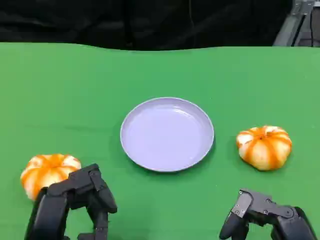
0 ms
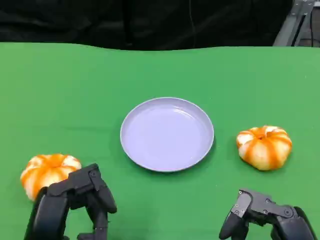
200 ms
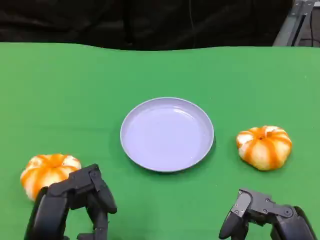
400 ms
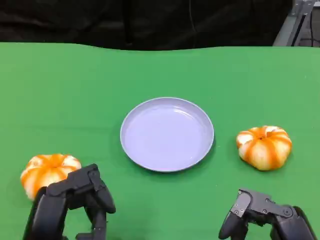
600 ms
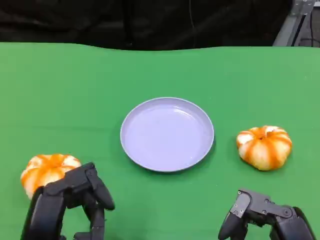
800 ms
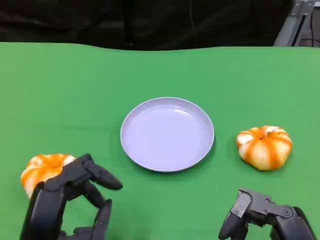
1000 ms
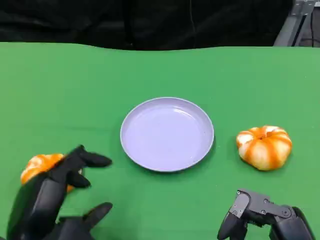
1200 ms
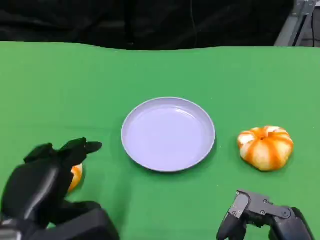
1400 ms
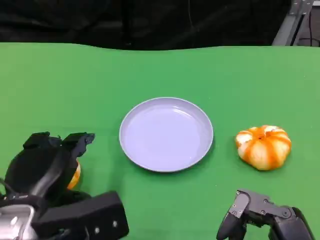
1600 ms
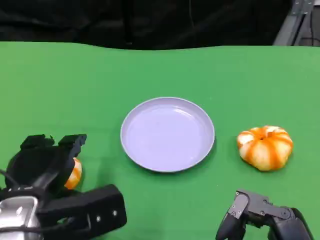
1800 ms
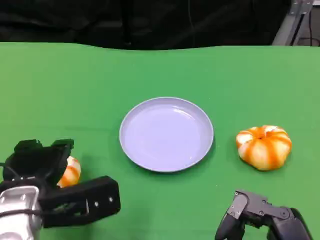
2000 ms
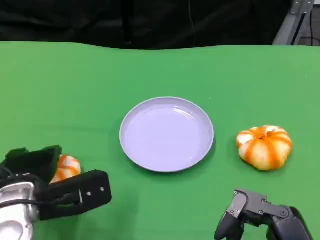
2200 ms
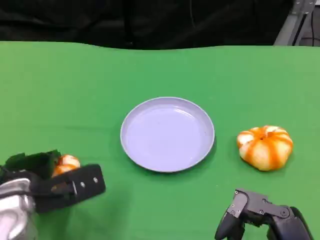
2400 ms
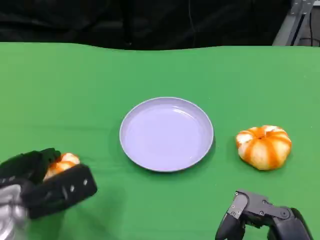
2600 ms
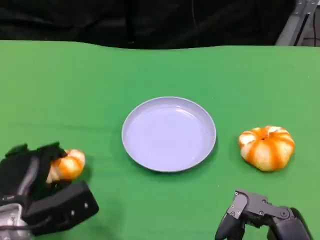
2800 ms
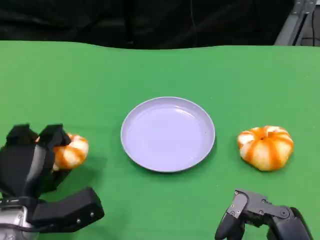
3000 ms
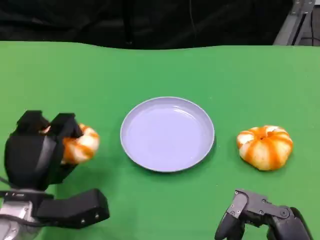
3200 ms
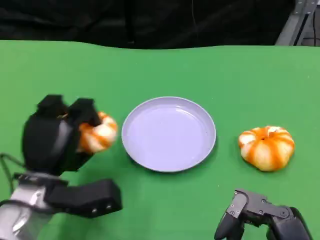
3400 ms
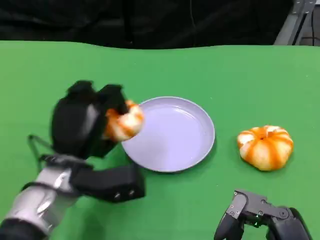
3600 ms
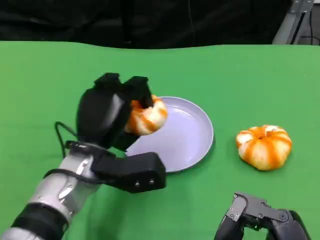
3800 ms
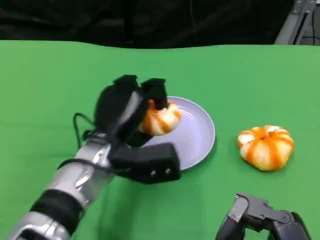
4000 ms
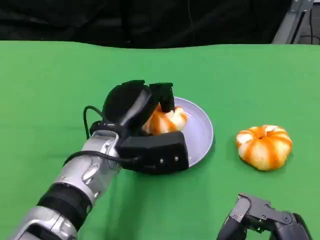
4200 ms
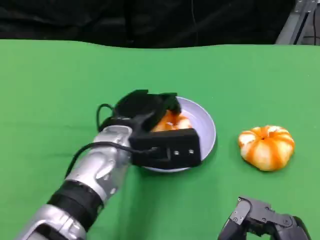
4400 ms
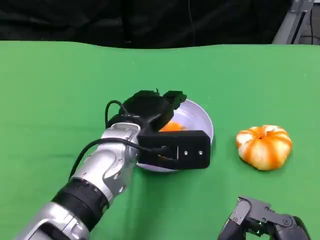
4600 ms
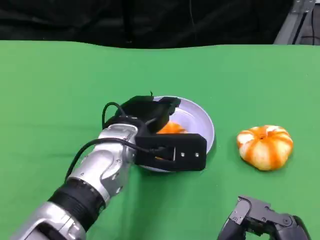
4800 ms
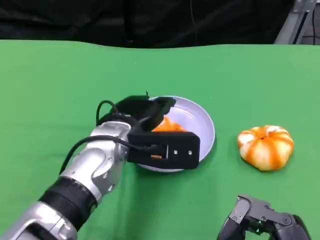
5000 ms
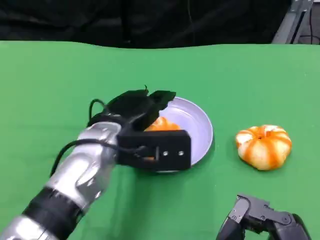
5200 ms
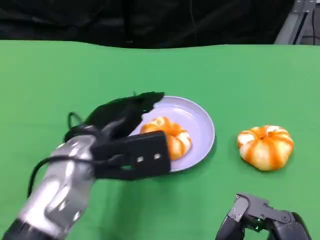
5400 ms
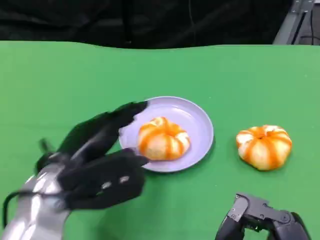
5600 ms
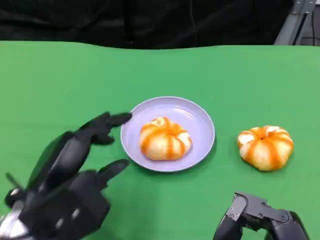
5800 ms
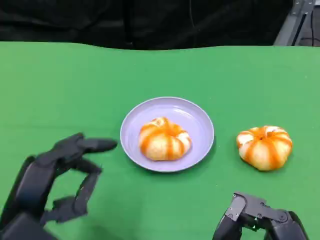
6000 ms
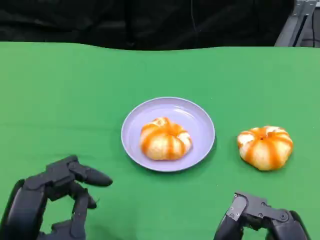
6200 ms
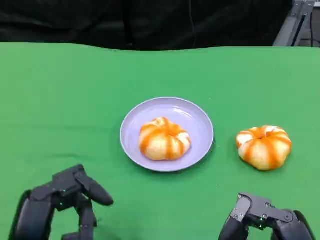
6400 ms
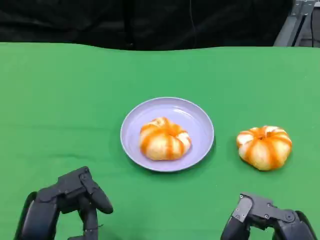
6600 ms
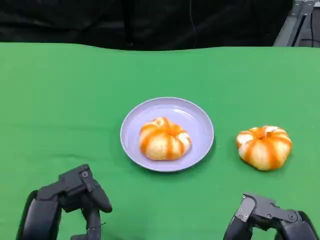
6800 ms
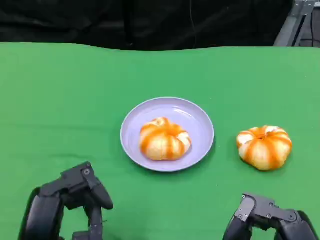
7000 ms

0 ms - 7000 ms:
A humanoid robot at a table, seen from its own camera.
Task of the whole recording: Grasp the bread from the table and place it into the plate.
0 ms - 1400 ms: The left hand moves approximately 5 cm.
1400 ms - 2800 ms: The left hand travels downward and forward by some 10 cm.
2800 ms - 4200 ms: The left hand heads to the right, upward and forward, covering approximately 15 cm.
4200 ms - 5600 ms: The left hand travels backward and to the left by roughly 10 cm.
5600 ms - 7000 ms: The left hand moves backward, some 10 cm.

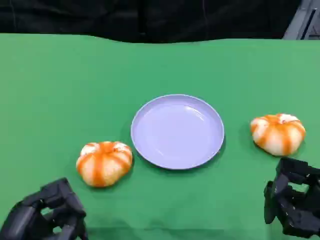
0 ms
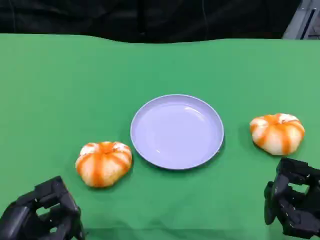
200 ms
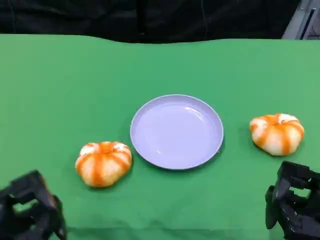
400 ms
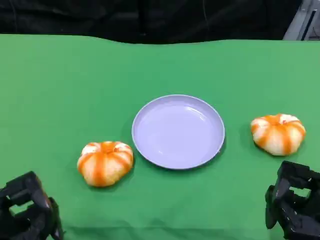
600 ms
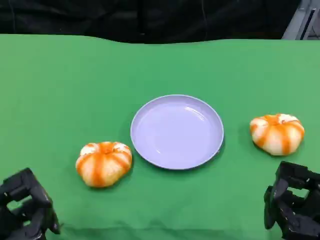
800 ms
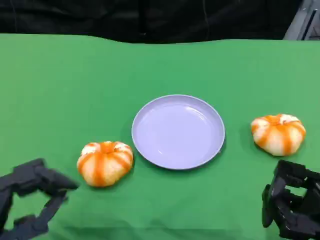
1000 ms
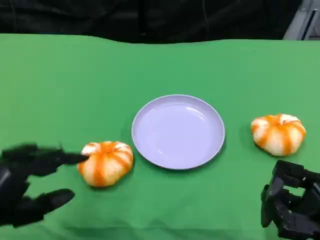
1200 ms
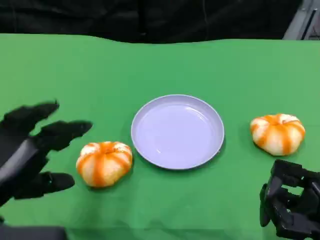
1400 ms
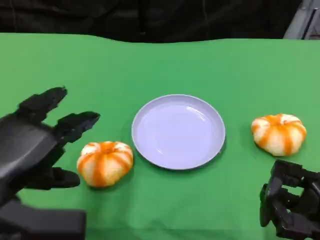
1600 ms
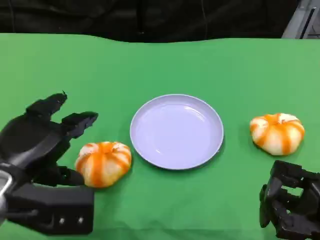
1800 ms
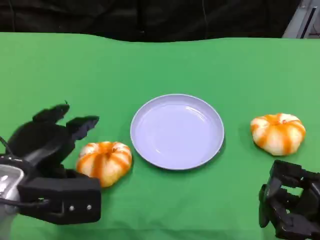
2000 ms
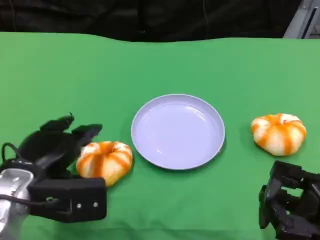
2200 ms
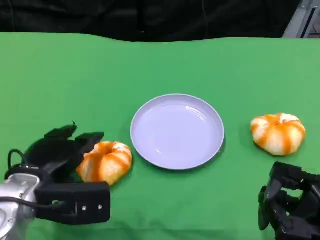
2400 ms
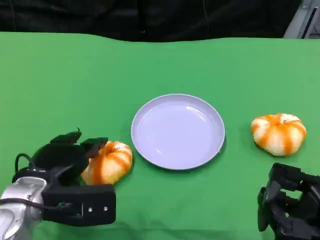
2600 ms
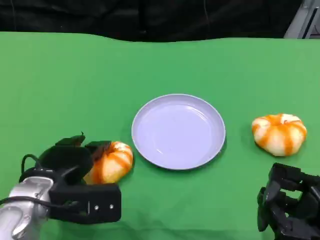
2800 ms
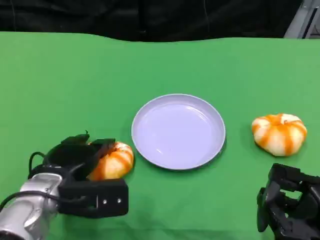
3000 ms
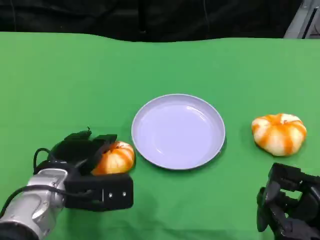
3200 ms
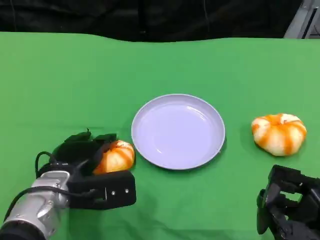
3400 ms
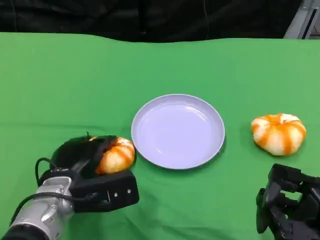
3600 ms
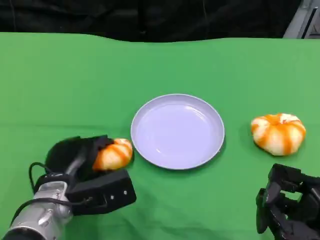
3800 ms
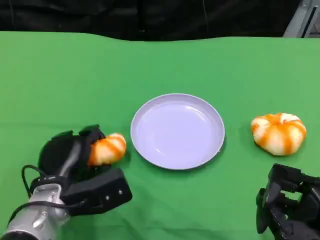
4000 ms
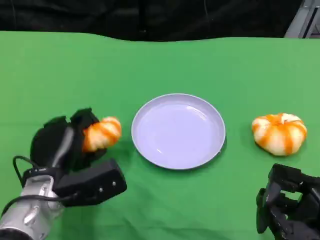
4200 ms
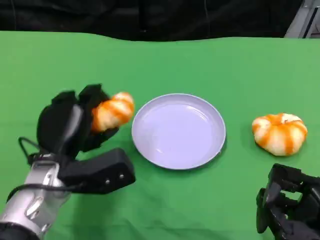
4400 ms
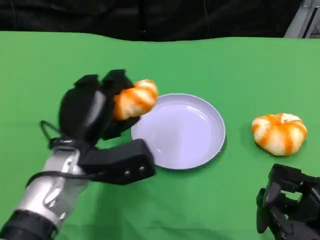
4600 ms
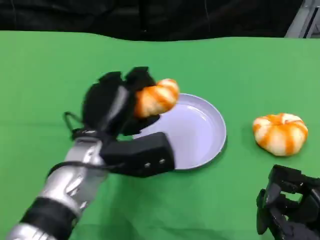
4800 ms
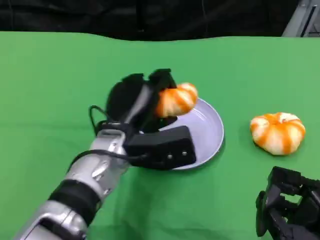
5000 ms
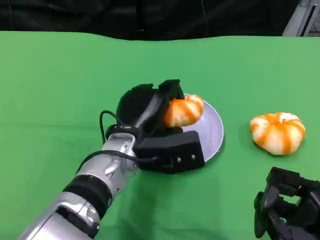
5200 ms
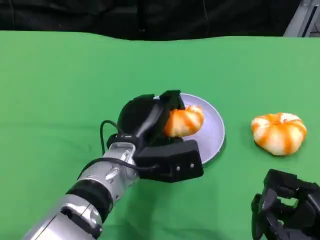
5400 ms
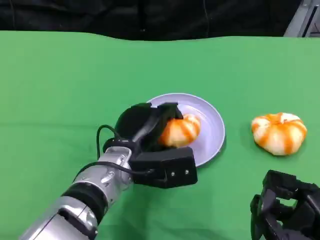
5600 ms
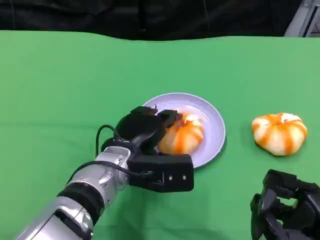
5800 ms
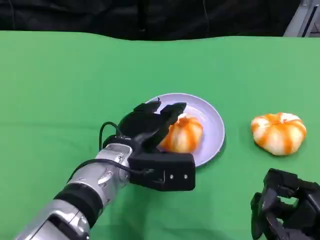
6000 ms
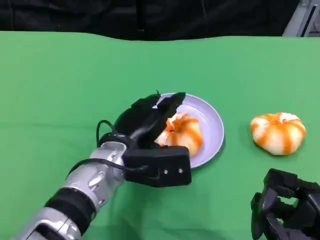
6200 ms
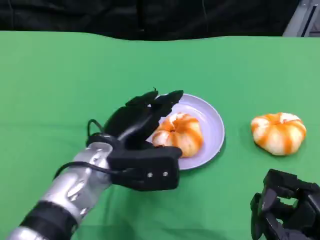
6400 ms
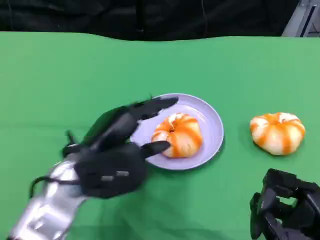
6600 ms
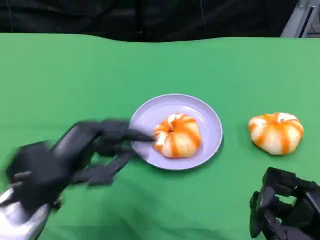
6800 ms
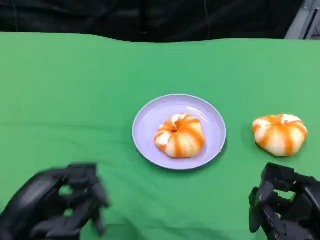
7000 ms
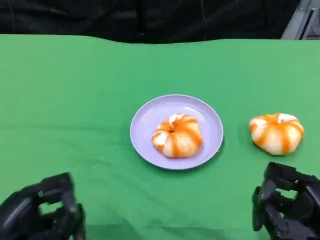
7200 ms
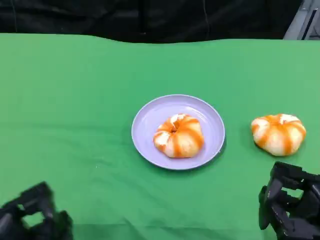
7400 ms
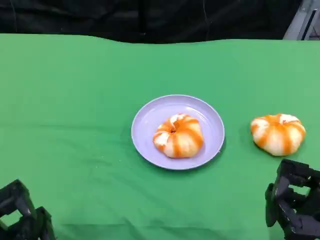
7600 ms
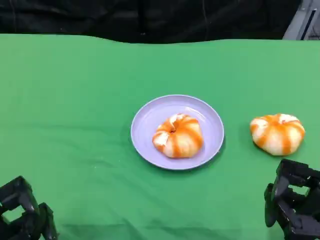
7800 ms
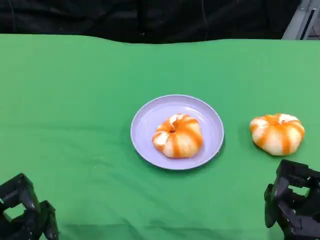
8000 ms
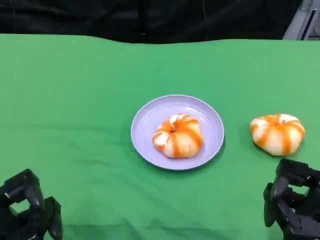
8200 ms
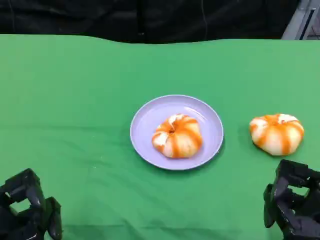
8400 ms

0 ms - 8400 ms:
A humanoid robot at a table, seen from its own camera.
Task of the whole recording: Grasp the bread from the table and place it into the plate.
0 ms - 1400 ms: The left hand travels upward by some 10 cm.
1400 ms - 2800 ms: The left hand goes approximately 15 cm downward, forward and to the right.
4200 ms - 5600 ms: The left hand goes some 10 cm to the right.
5600 ms - 7000 ms: The left hand moves to the left and backward, roughly 20 cm.
7000 ms - 8400 ms: The left hand shifts by some 5 cm.

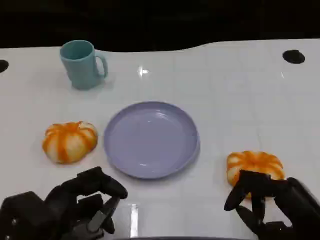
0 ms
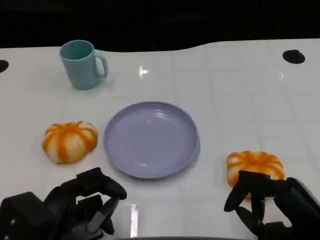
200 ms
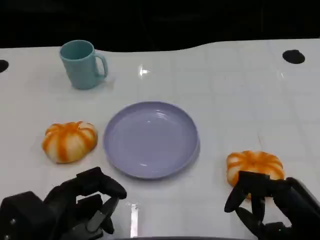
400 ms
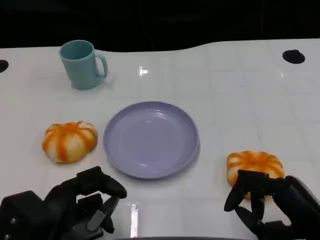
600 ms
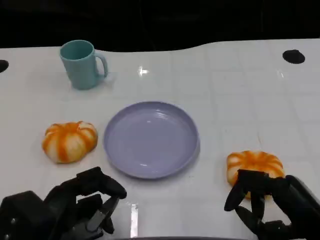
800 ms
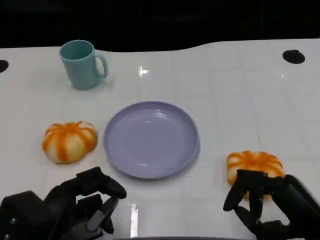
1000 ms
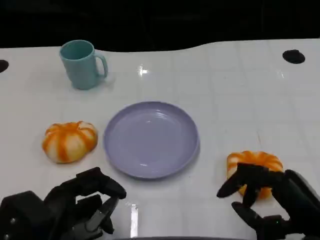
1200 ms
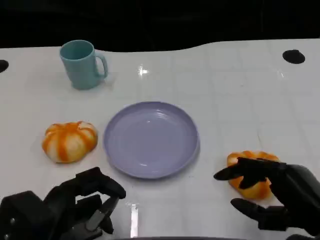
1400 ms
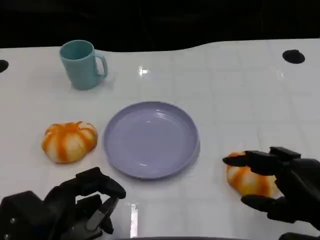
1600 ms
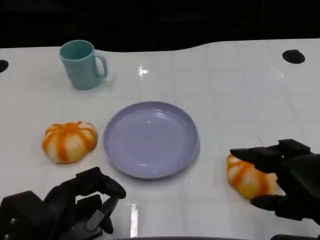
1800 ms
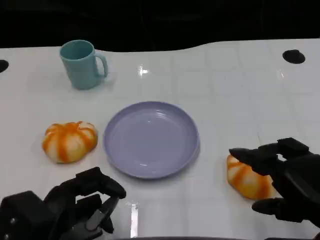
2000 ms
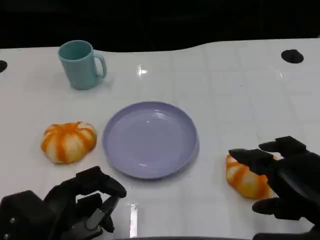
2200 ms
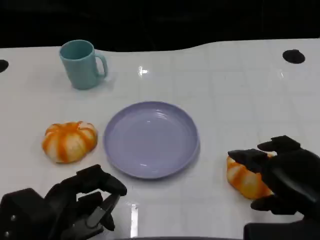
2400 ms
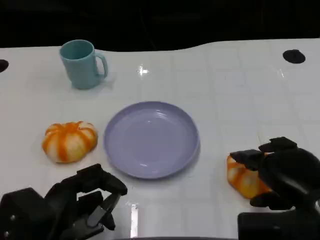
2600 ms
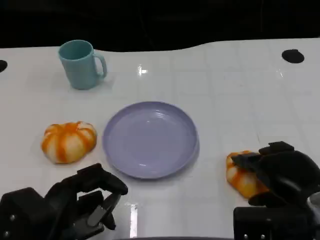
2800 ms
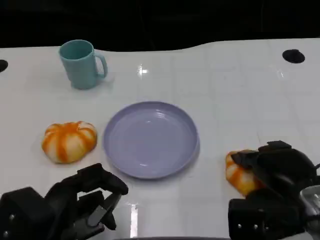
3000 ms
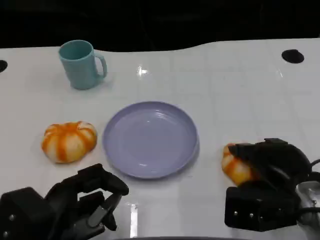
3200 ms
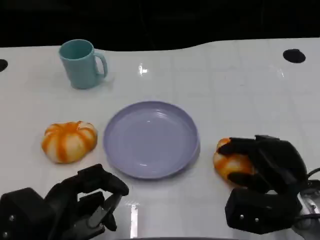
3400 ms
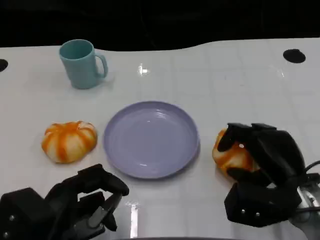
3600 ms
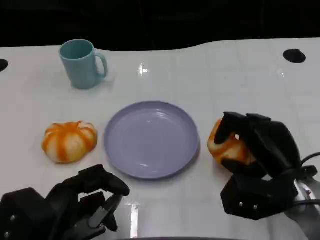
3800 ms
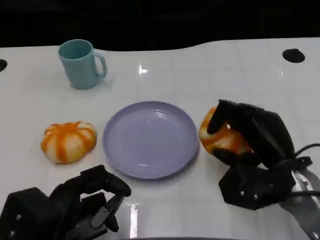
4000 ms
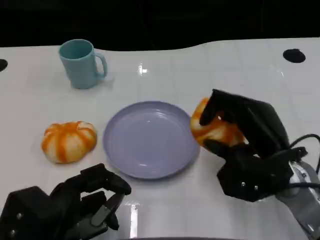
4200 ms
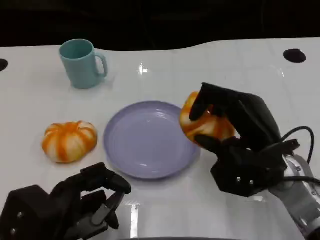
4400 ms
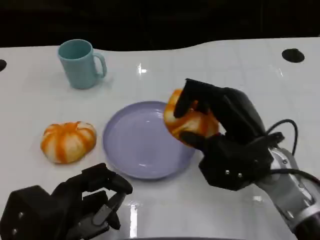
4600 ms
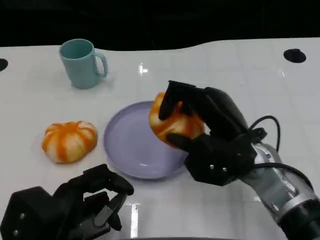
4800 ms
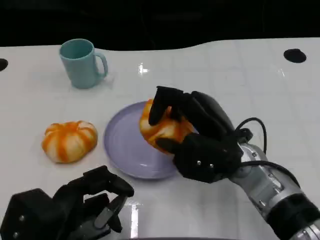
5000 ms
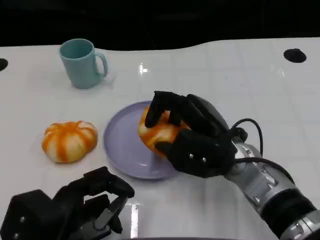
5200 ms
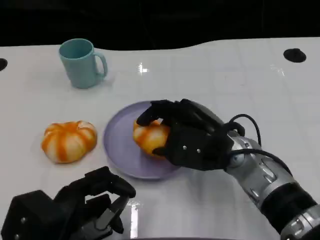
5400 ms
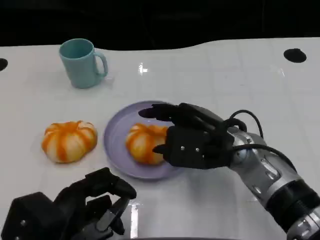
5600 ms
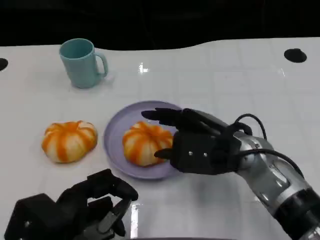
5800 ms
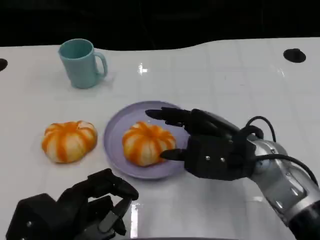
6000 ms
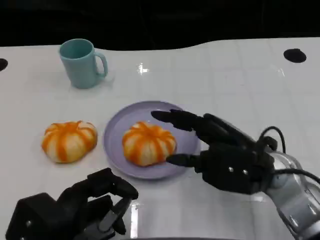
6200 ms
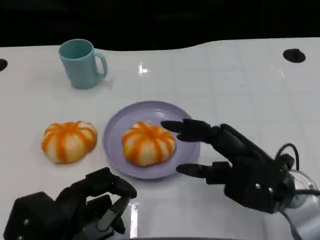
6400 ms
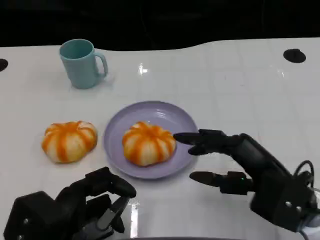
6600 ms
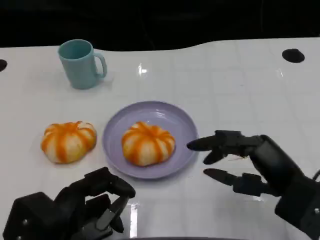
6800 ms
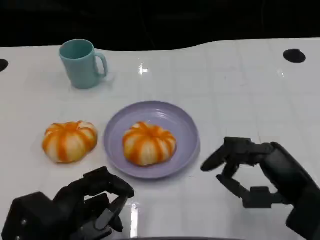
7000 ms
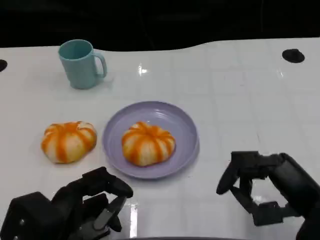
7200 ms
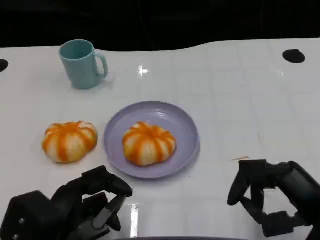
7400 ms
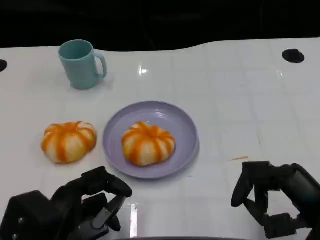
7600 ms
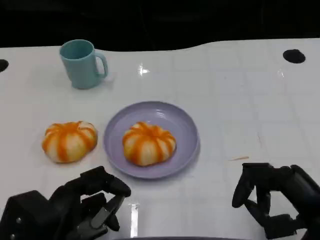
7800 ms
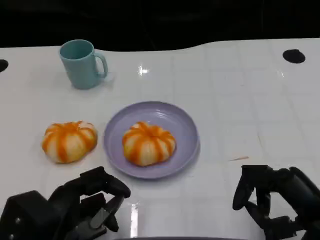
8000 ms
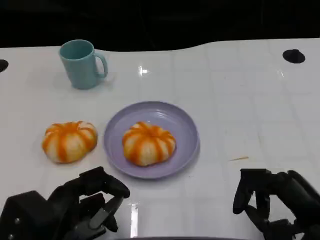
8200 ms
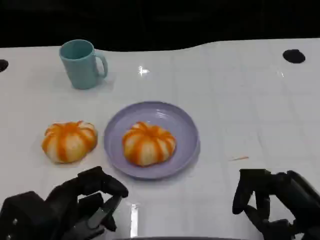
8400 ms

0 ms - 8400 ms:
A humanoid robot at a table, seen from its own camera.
Task of the whole recording: Grasp the bread from the table and place it into the plate.
0 ms - 1400 ms: There are only small adjustments of the hands.
1400 ms - 2800 ms: The right hand moves forward, about 5 cm.
2800 ms - 4200 ms: The right hand moves forward, about 5 cm.
4200 ms - 5600 ms: The right hand travels to the left by some 5 cm.
5600 ms - 7000 ms: The right hand moves to the right and backward, about 15 cm.
7000 ms - 8400 ms: The hands make only small movements.
